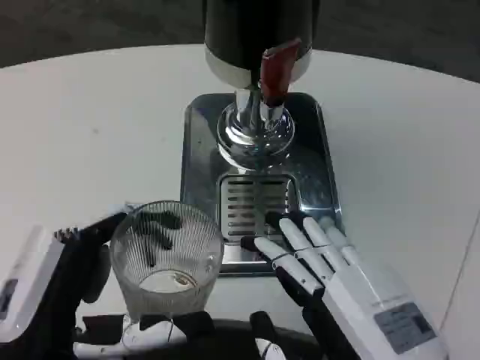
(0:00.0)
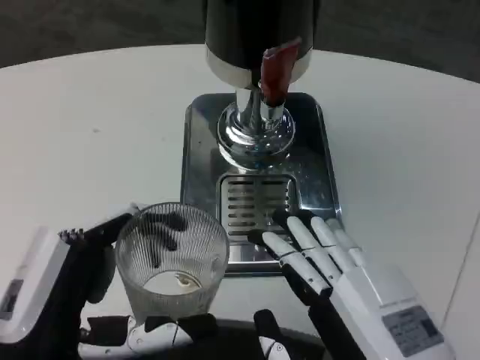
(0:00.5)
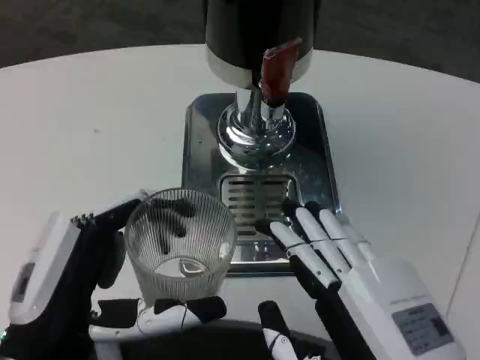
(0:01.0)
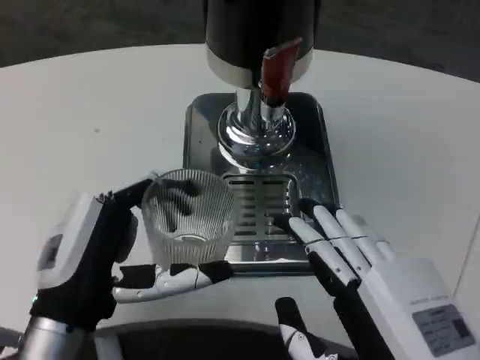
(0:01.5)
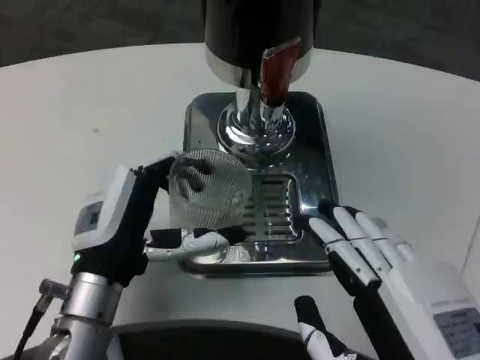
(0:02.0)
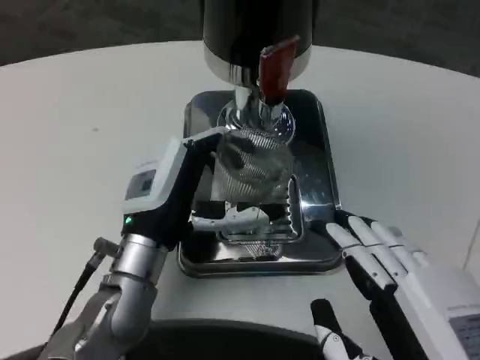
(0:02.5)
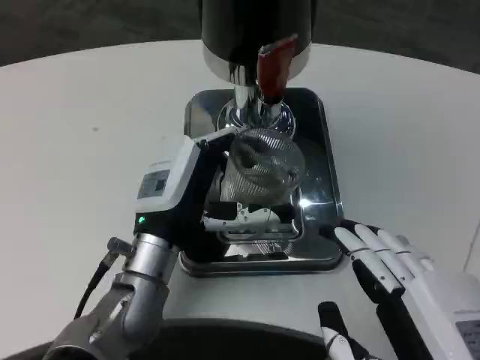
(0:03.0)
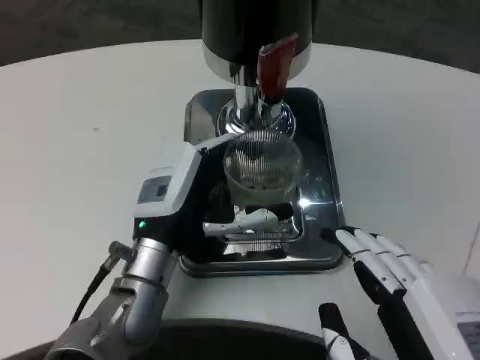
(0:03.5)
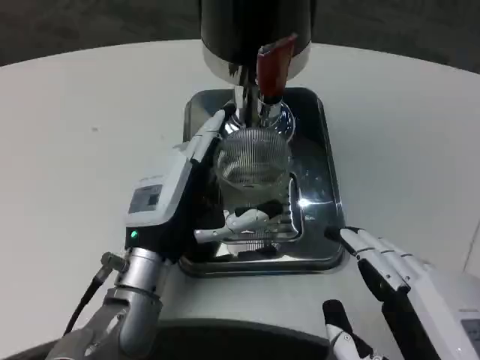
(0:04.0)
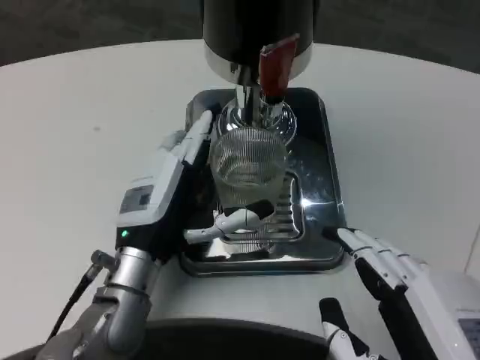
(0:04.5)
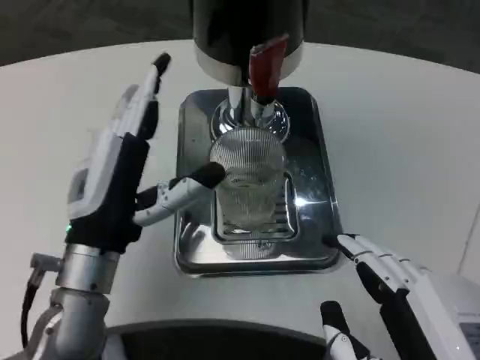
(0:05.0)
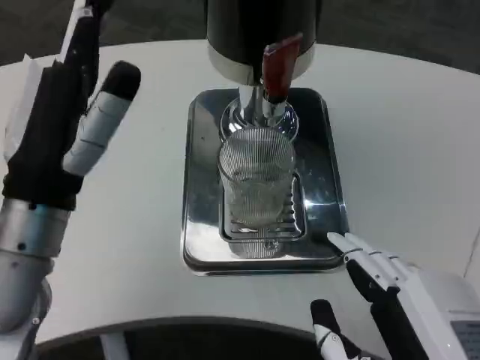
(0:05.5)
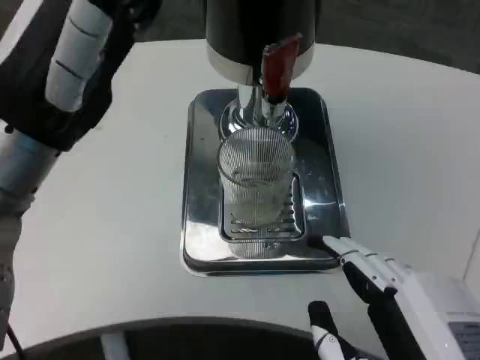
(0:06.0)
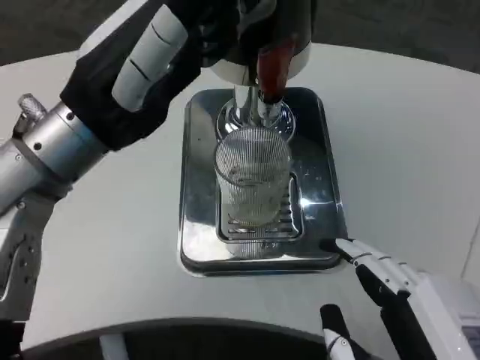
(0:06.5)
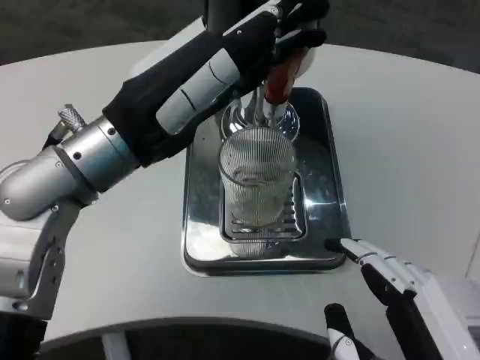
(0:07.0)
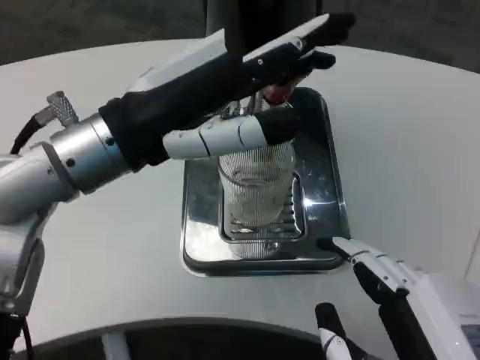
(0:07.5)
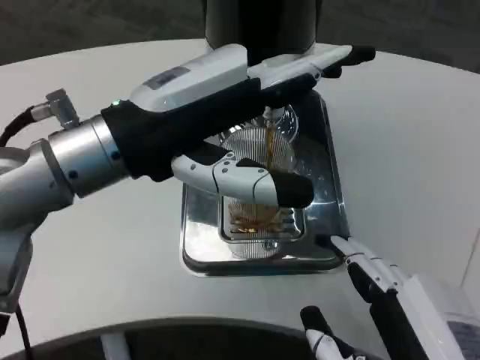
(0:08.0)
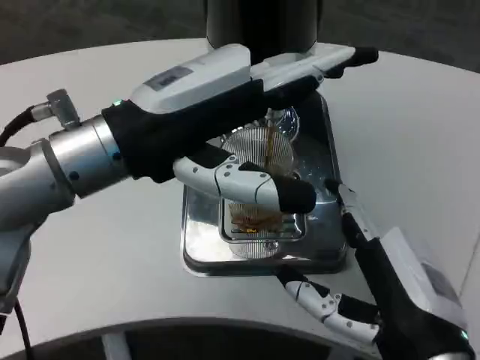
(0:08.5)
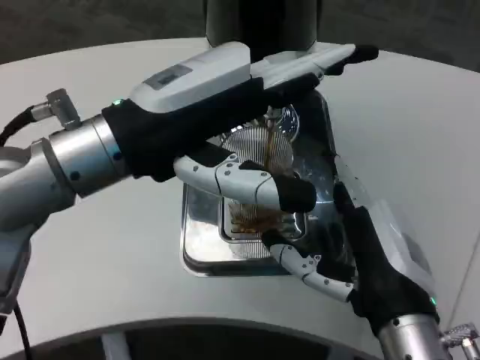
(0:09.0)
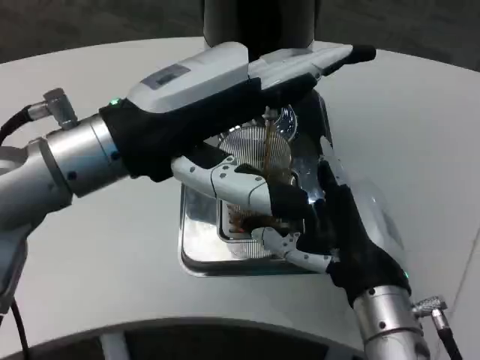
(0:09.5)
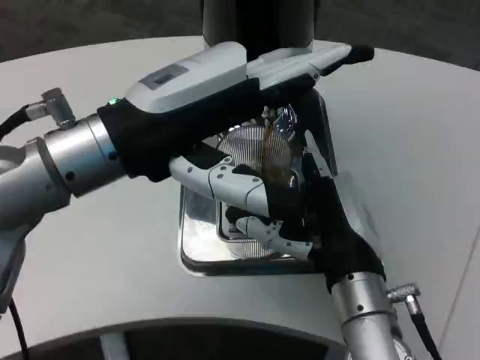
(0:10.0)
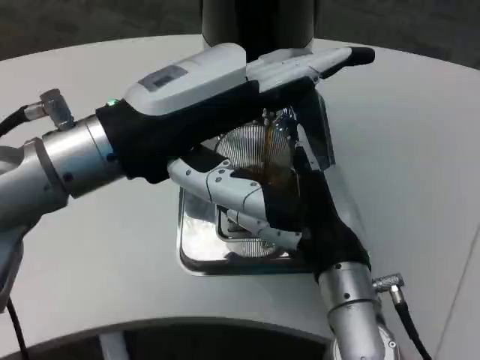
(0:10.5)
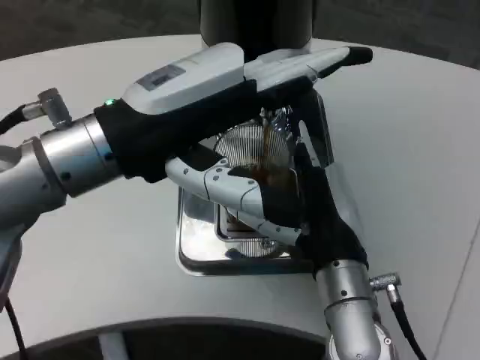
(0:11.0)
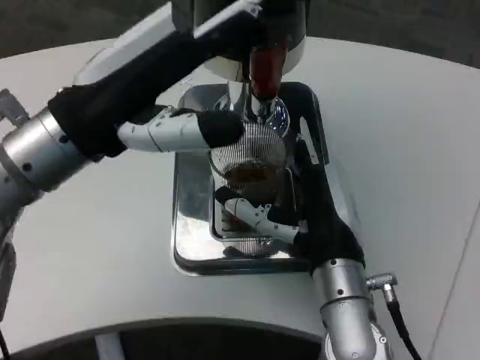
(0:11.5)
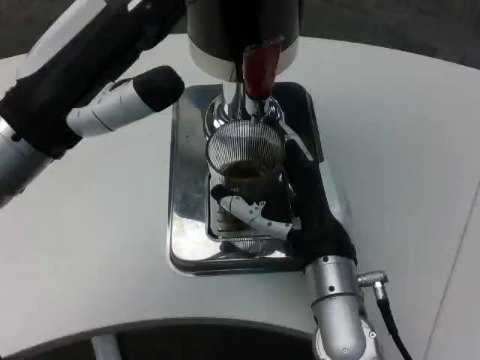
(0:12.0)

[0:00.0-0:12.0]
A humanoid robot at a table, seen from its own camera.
Task of the whole recording: Grasp the cup under the faucet to collect the drink, then remove the cup.
0:00.0 to 0:02.0: The left hand is displaced forward by about 10 cm.
0:02.0 to 0:04.0: The left hand shifts by some 5 cm.
0:04.0 to 0:06.0: The left hand travels upward by roughly 20 cm.
0:08.0 to 0:10.0: The right hand heads forward, covering approximately 15 cm.

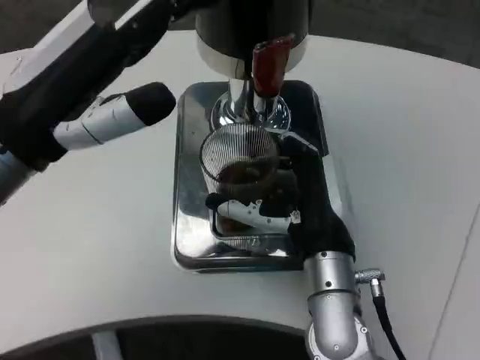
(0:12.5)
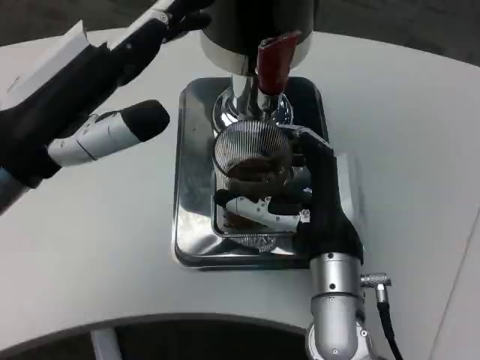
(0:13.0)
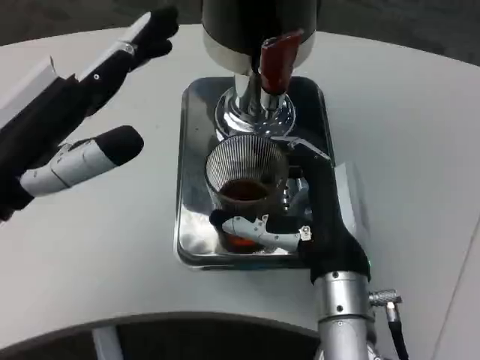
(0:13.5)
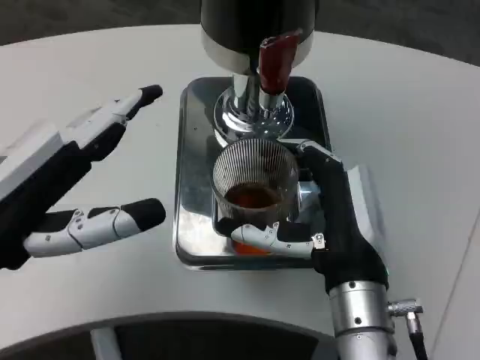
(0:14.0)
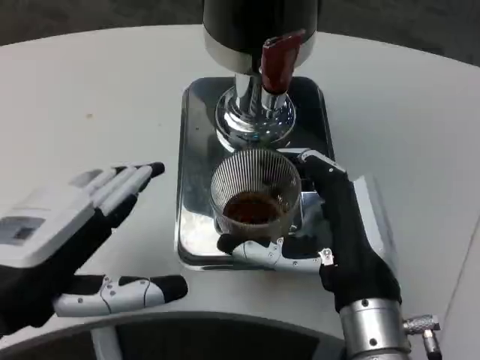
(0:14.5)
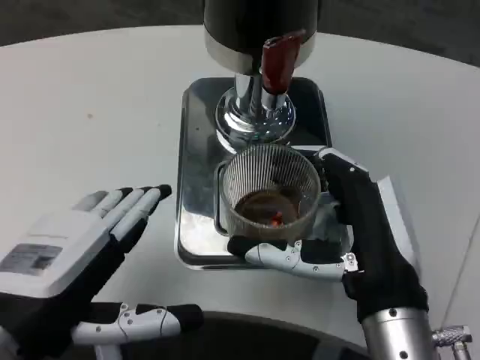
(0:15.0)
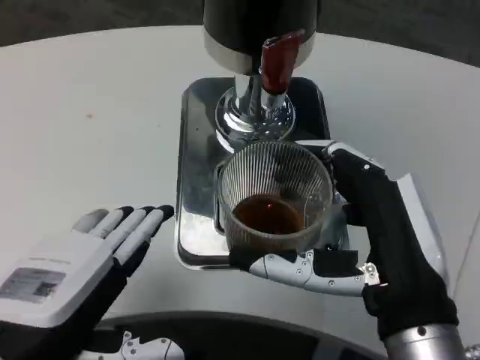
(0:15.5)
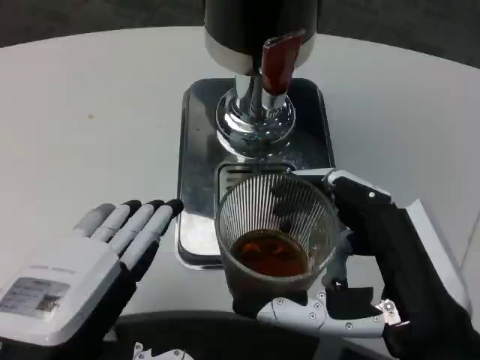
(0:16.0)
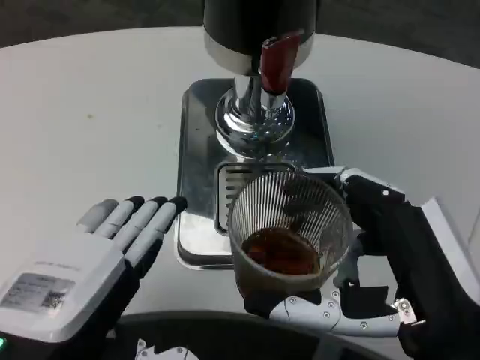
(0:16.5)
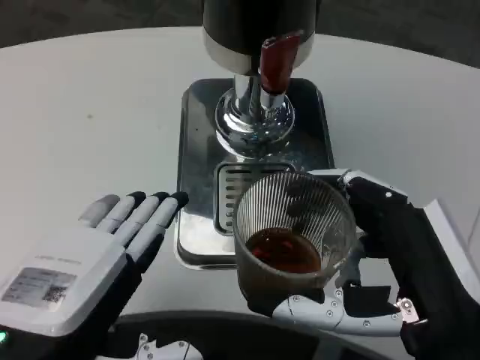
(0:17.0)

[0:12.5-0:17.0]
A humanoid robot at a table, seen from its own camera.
Task of the whole recording: Grasp the cup under the faucet to collect the drink, then remove the cup.
0:12.5 to 0:14.5: The left hand shifts about 10 cm backward and downward, while the right hand heads backward, covering some 5 cm.
0:14.5 to 0:17.0: The left hand ends up approximately 5 cm from where it was. Meanwhile the right hand moves backward, about 10 cm.

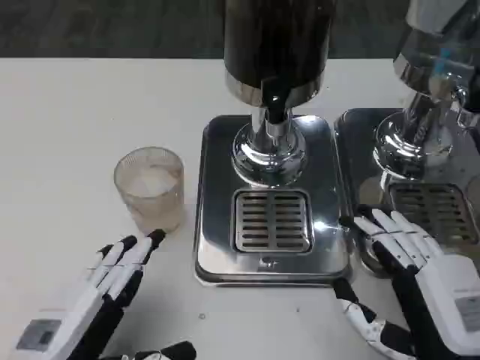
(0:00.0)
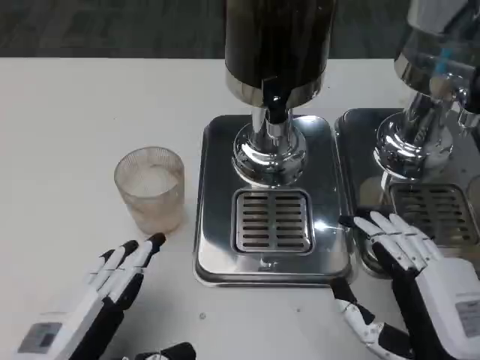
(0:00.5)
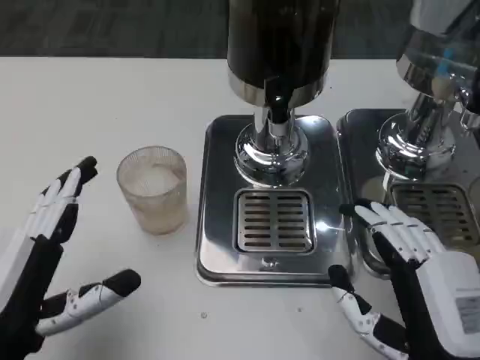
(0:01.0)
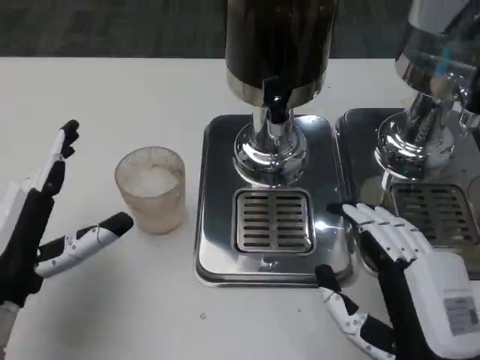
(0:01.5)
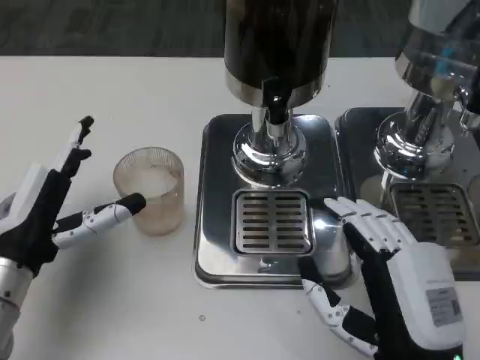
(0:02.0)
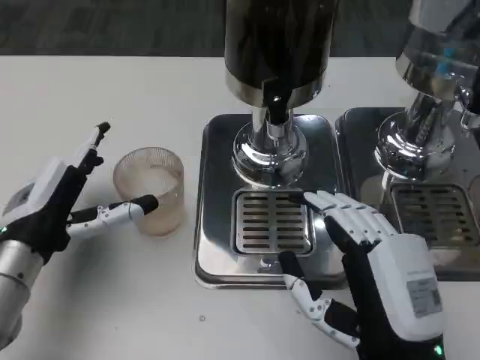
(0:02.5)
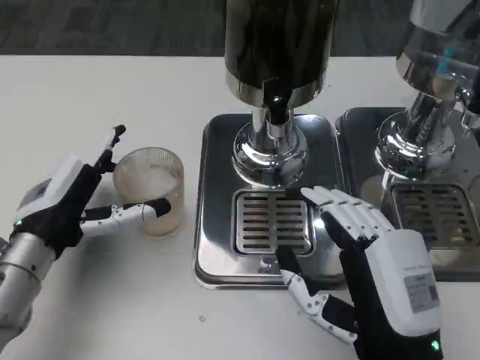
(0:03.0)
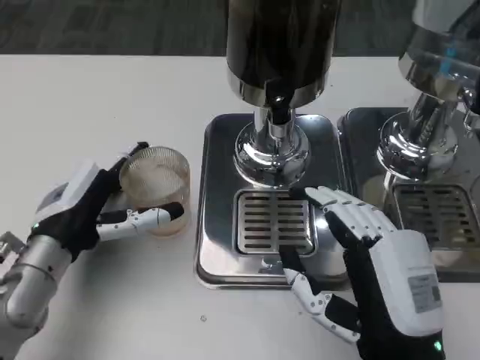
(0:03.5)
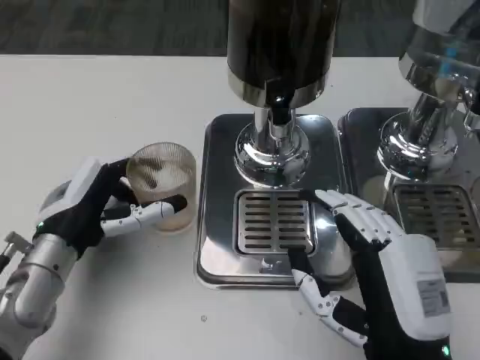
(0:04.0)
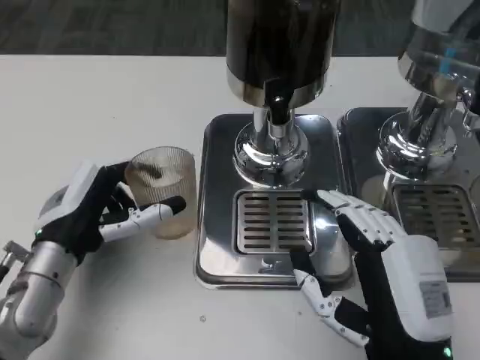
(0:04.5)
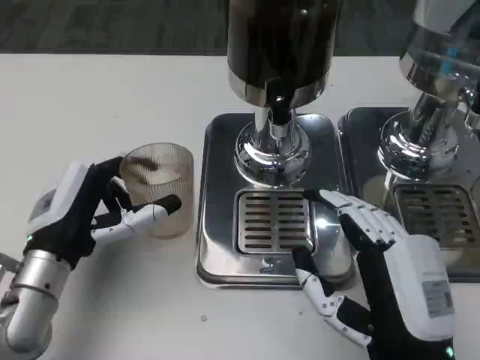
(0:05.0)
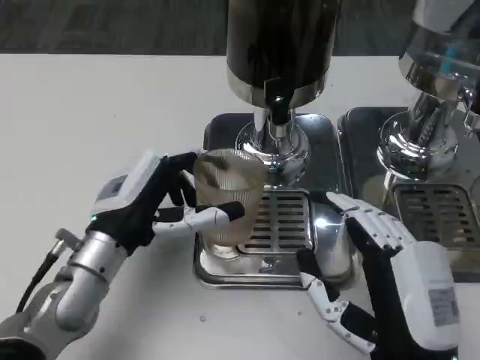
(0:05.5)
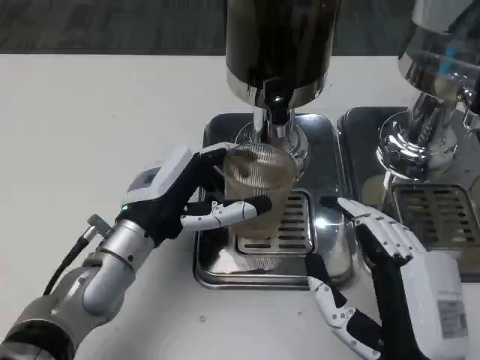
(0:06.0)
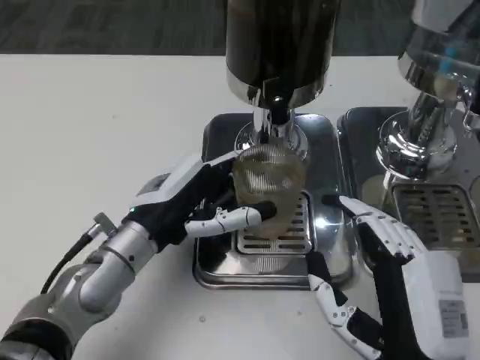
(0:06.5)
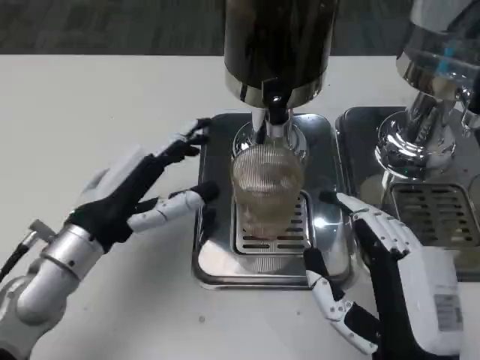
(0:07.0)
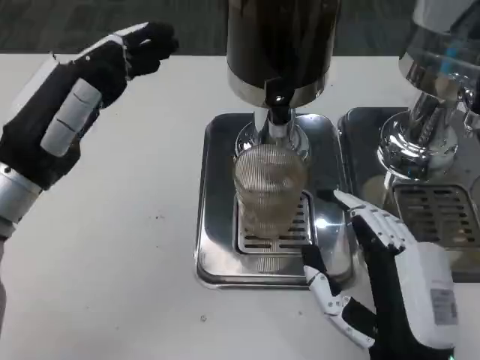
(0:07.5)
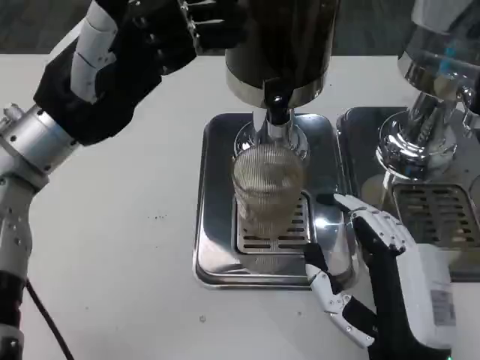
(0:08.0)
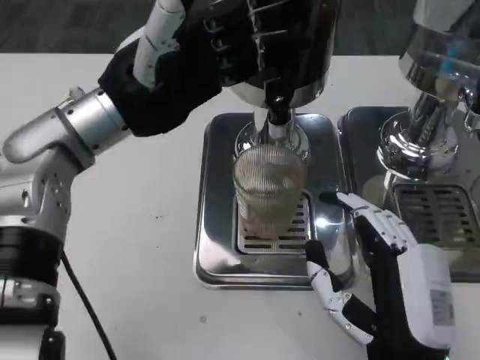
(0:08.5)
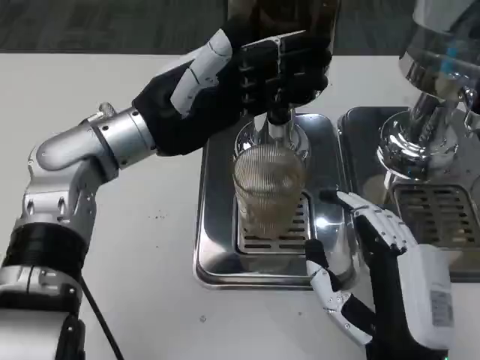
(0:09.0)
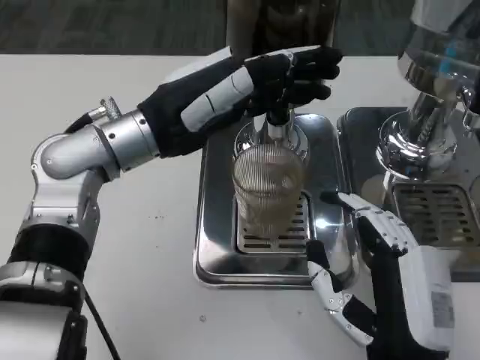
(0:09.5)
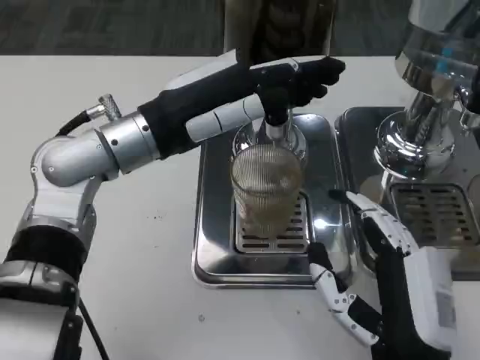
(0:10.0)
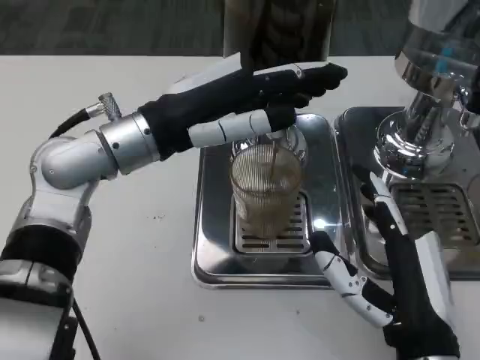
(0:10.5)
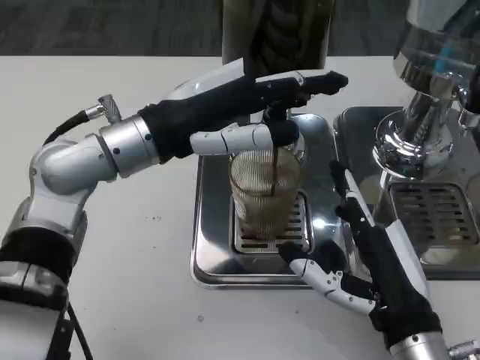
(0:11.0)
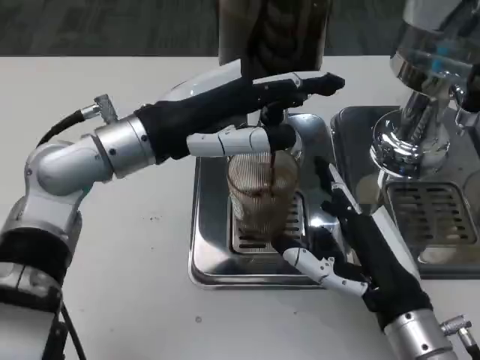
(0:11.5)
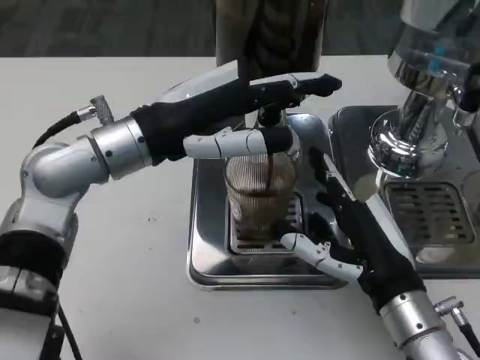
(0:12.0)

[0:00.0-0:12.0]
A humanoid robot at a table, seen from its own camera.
Task of the whole recording: Grasp the cup under the faucet to collect the drink, then remove the cup.
0:00.0 to 0:02.0: The left hand is displaced forward by about 10 cm.
0:04.0 to 0:06.0: The left hand travels to the right by roughly 5 cm.
0:06.0 to 0:08.0: The left hand goes approximately 15 cm upward and to the left.
0:08.0 to 0:10.0: The left hand is displaced to the right by roughly 5 cm.
0:10.0 to 0:12.0: The right hand shifts about 10 cm forward.
